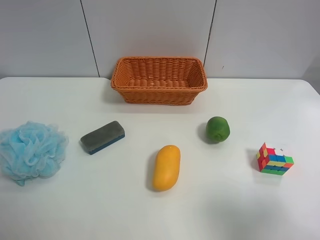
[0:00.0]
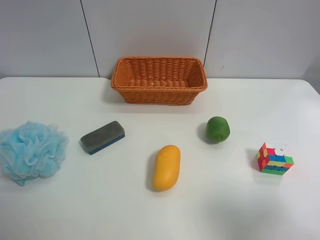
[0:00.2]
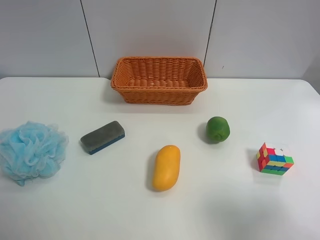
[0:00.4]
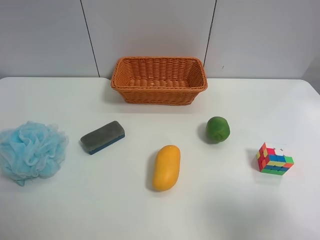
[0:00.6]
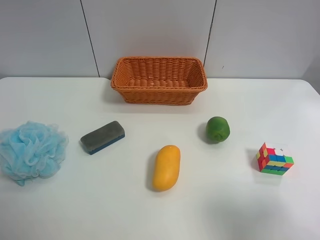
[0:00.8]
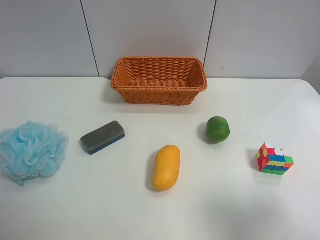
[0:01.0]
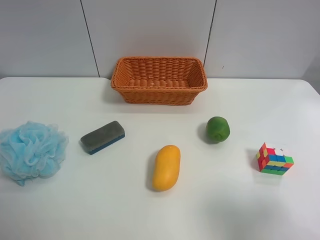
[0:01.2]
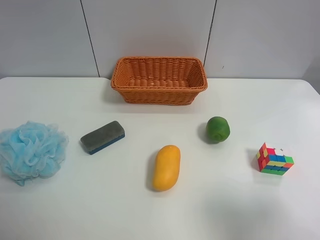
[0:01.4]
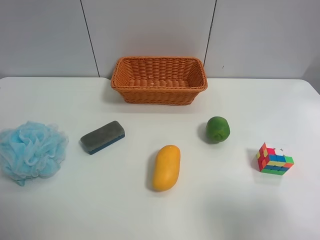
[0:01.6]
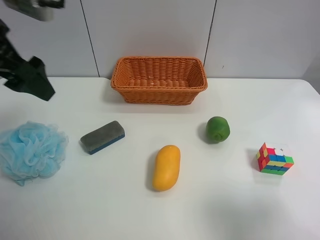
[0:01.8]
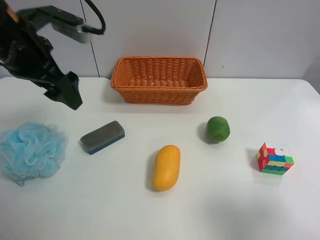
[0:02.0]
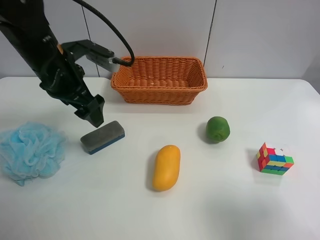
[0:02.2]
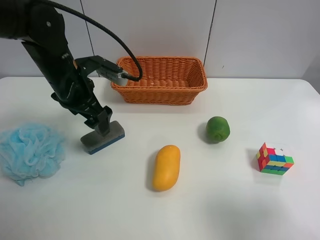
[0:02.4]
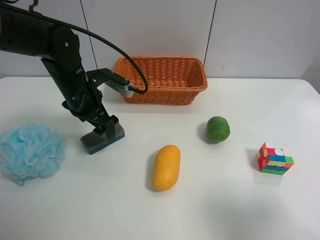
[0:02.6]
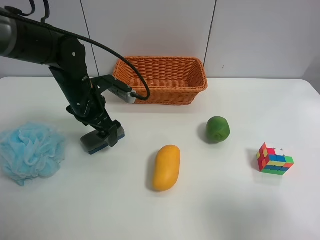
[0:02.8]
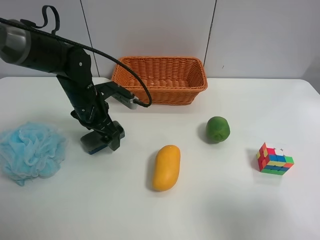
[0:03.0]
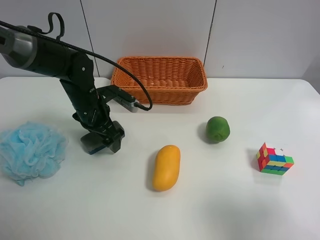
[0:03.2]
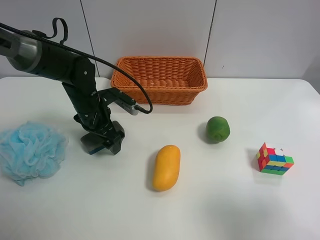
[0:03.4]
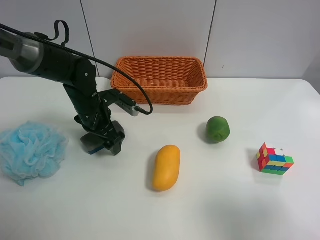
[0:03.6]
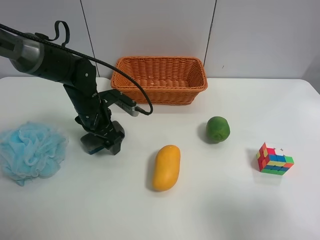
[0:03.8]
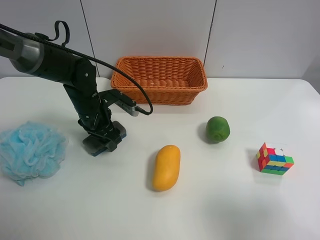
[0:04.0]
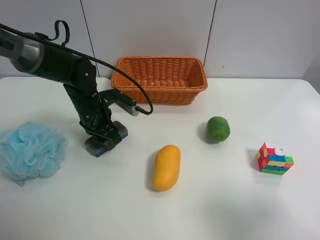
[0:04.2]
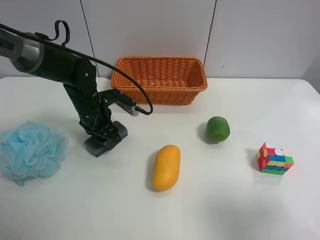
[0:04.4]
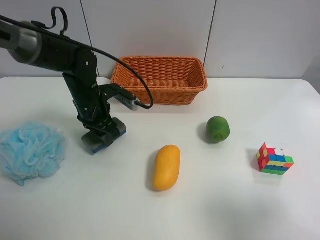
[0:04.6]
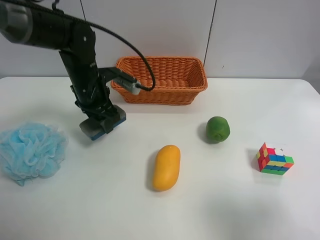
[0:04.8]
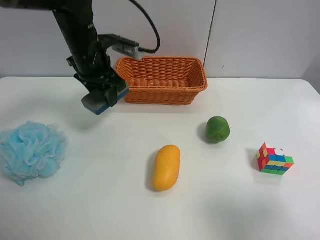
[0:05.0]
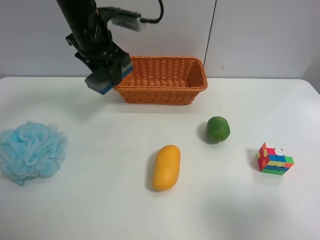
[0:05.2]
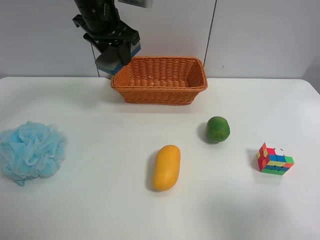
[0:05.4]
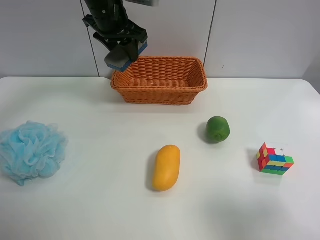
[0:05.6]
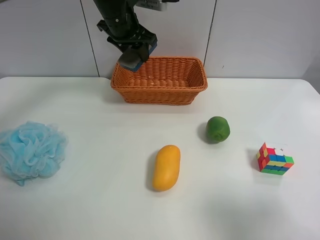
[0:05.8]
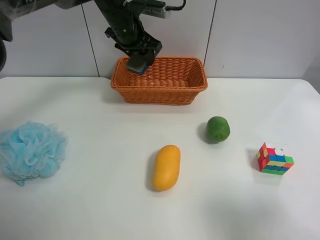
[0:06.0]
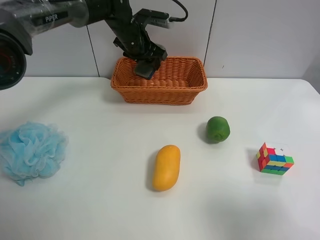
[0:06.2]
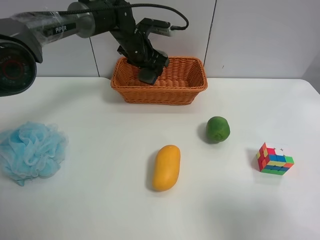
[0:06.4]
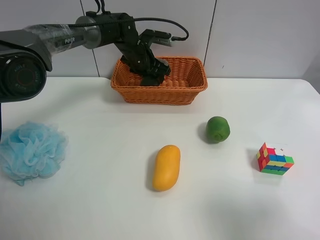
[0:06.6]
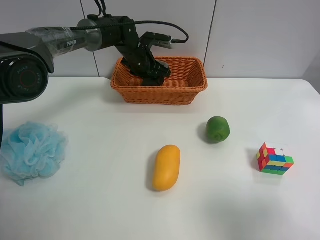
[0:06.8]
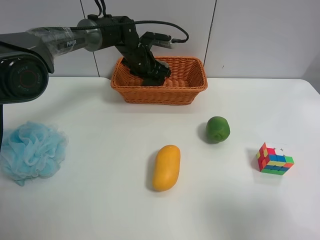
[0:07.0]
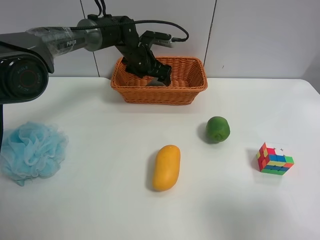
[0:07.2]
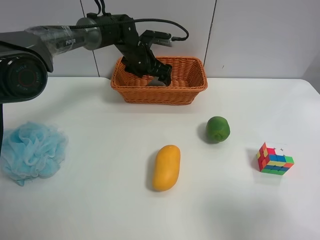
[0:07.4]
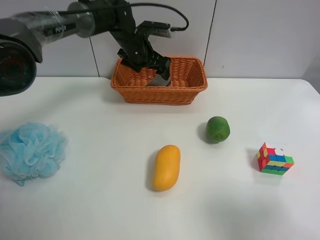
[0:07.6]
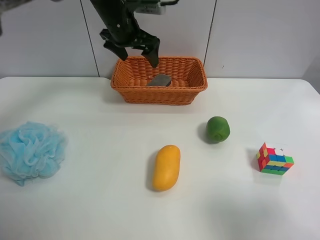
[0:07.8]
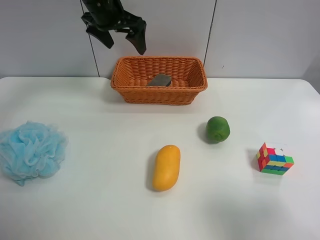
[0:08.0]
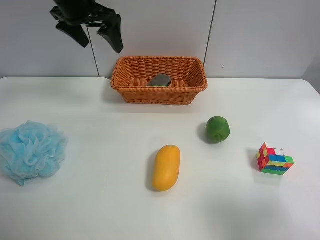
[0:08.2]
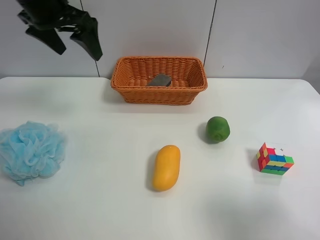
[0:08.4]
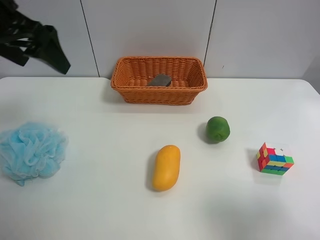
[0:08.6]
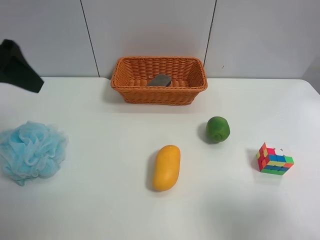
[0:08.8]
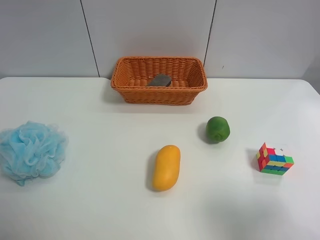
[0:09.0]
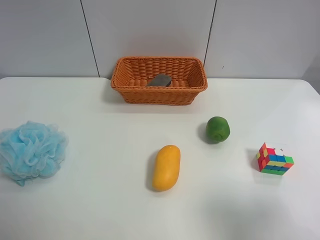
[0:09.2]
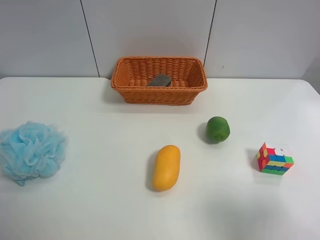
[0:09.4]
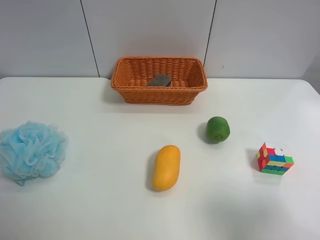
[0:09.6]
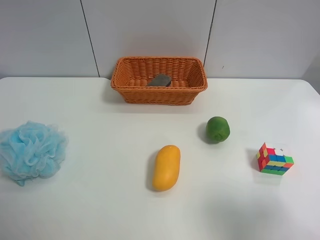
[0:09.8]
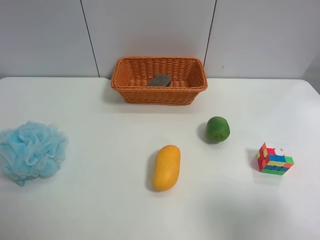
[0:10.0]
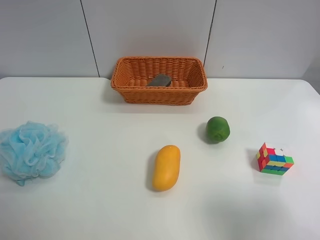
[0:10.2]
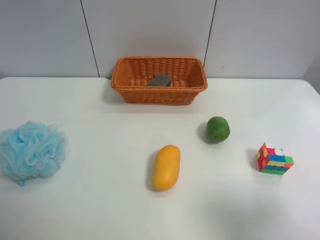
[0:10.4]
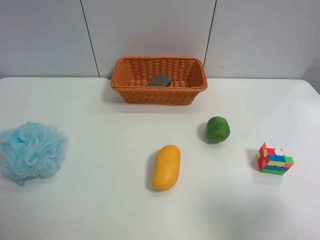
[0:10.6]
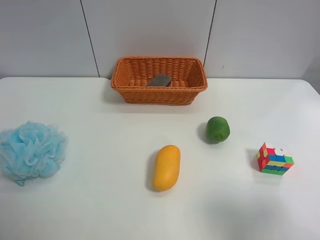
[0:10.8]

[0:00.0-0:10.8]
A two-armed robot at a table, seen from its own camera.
Task of the whole recording: use the left gripper to grab items from the table and place them in the basket.
Step, 0:00.0 to 0:04.2: Grasp the chalkboard eraser with the left gripper.
Step, 0:04.4 to 0:07.4: Place the chalkboard eraser into the basket with the left gripper.
0:01.6 to 0:03.0: The left gripper shifts about 30 cm downward, forward and to the right.
0:03.0 to 0:04.6: The left gripper closes.
0:04.6 to 0:06.2: The left gripper heads forward, to the right and upward, covering about 20 cm.
0:06.2 to 0:07.8: The left gripper moves upward, about 5 cm, and opens up.
0:07.8 to 0:09.2: The left gripper goes about 40 cm backward and to the left.

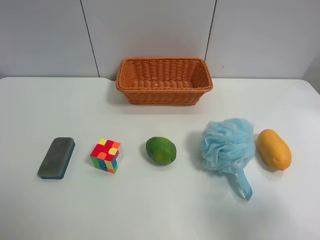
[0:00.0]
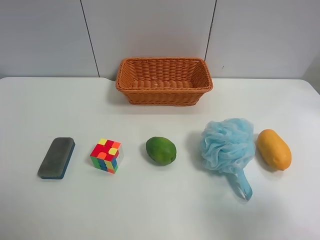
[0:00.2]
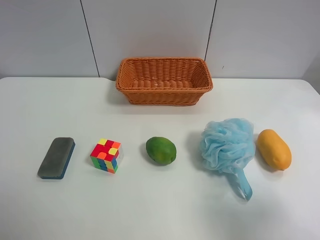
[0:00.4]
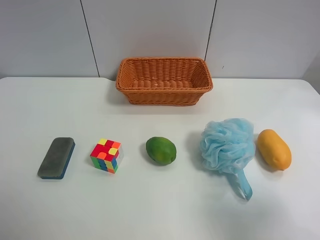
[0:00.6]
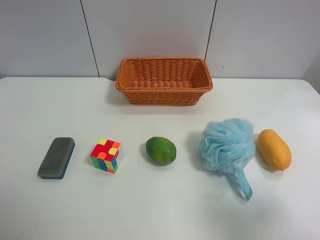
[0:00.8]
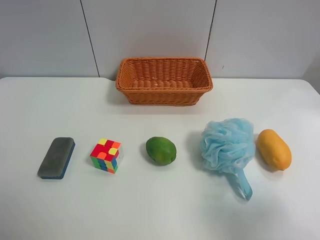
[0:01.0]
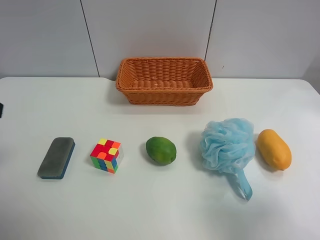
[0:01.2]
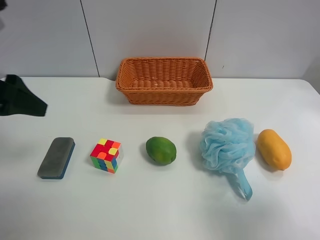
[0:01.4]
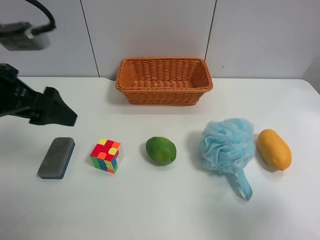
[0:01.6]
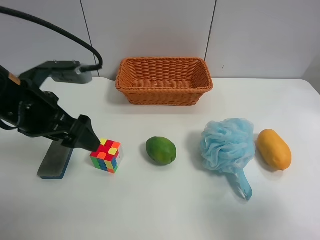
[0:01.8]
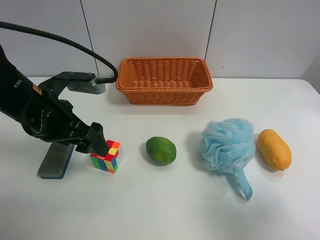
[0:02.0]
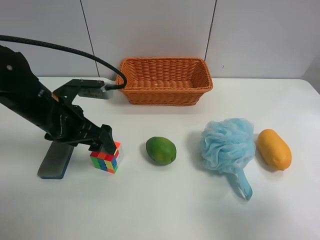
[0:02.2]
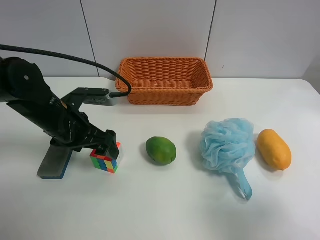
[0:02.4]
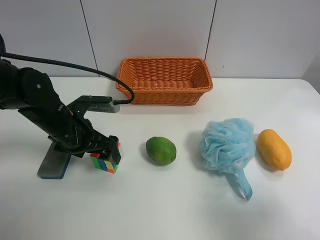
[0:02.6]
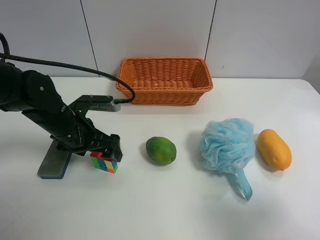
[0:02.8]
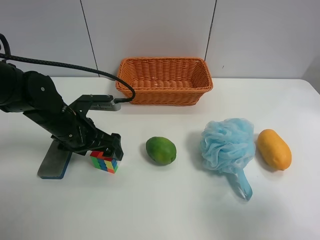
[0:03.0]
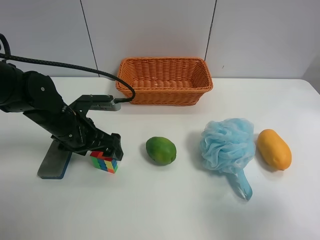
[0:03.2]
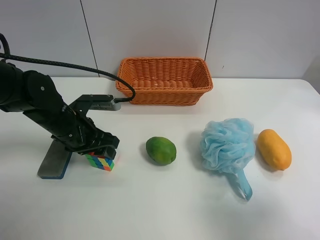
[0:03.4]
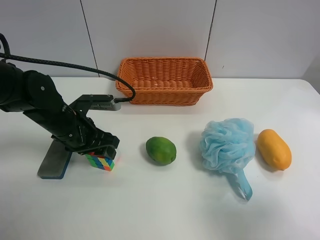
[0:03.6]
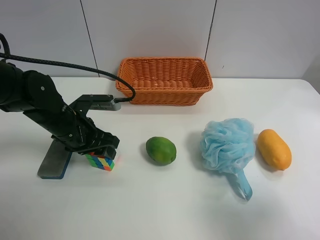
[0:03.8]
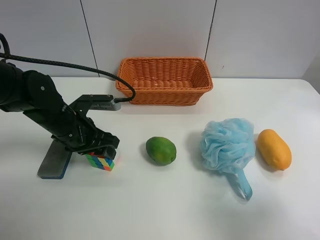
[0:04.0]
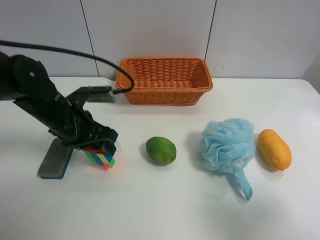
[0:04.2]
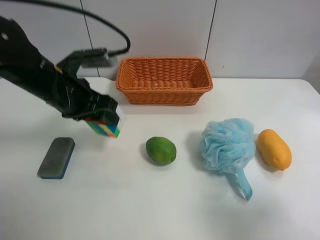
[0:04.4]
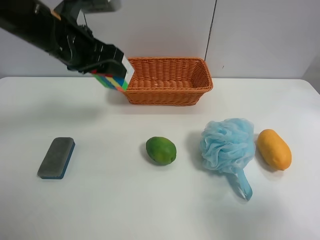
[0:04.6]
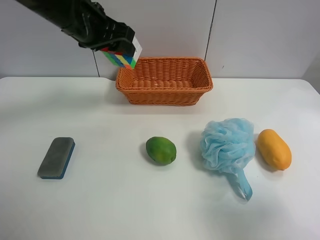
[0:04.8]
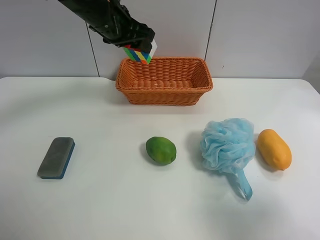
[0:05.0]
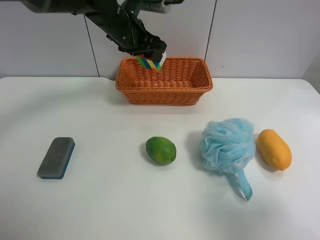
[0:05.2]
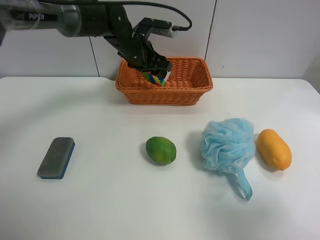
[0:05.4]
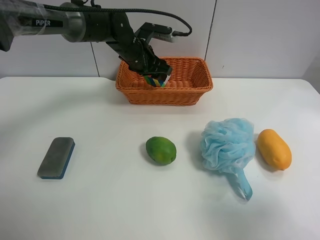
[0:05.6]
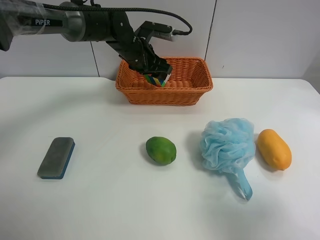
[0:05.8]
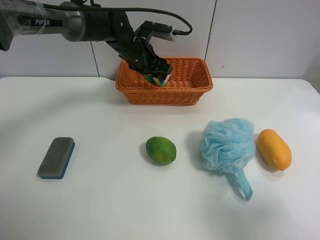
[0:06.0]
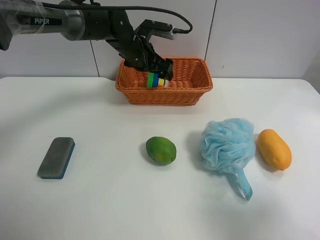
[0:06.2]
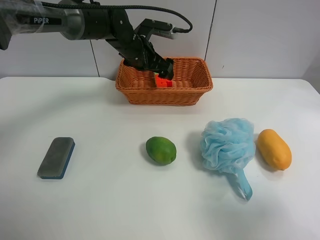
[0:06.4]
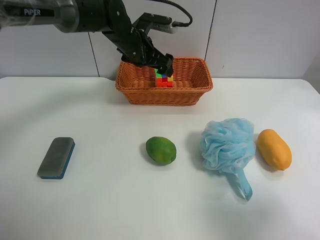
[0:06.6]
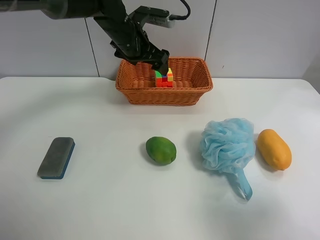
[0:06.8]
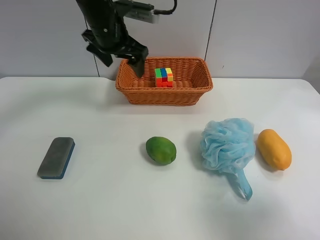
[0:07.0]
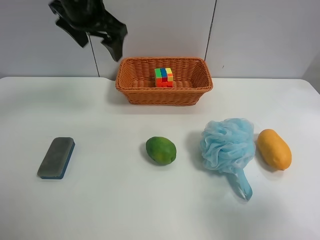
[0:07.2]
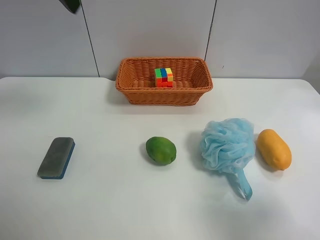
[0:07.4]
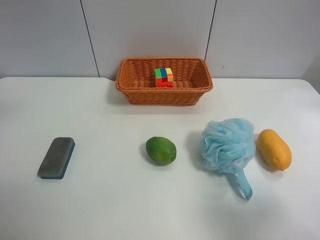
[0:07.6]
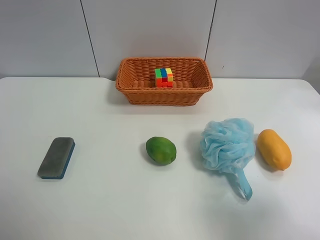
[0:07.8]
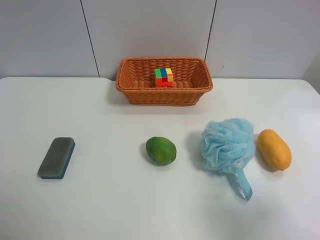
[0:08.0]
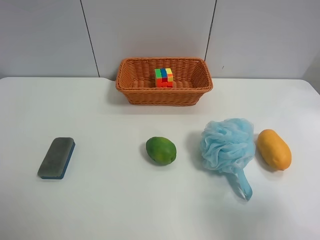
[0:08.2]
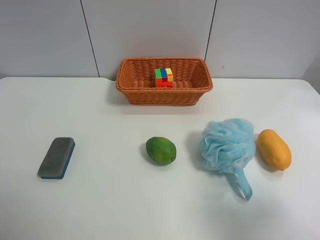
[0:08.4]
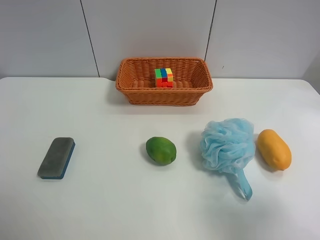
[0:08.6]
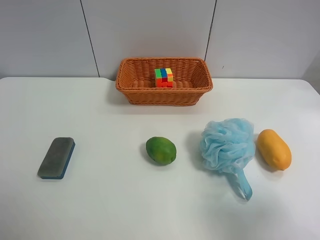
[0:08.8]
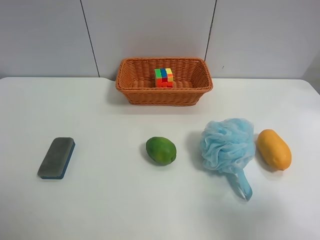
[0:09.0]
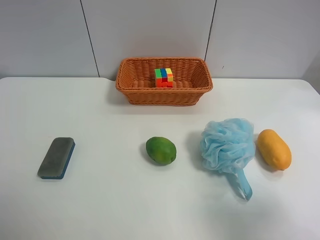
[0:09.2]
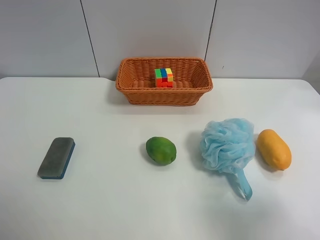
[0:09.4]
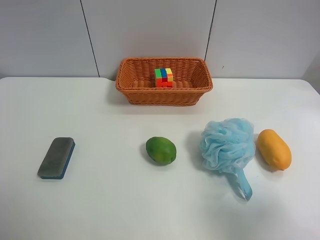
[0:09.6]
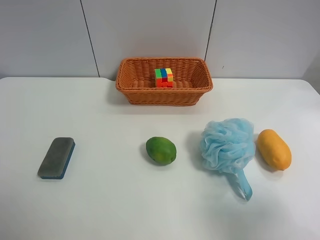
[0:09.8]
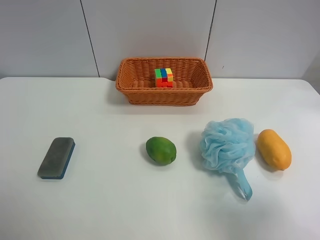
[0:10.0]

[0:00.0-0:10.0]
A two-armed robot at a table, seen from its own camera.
Task of the whole recording: use the left gripper to grab items from the table and place them in the basket.
Step, 0:00.0 to 0:03.4: Grasp the Rubik's Cube with the left gripper.
Step, 0:03.6 to 0:06.2: Place the Rubik's Cube into the basket with the left gripper.
0:00.0 to 0:01.4: The left gripper travels forward by some 20 cm.
0:01.4 to 0:02.8: The left gripper is displaced downward, to the right and forward by roughly 20 cm.
0:02.8 to 0:04.2: The left gripper closes its fingers.
0:04.2 to 0:05.8: The left gripper heads forward and to the right, covering roughly 20 cm.
0:05.8 to 0:07.2: The left gripper travels upward, backward and to the left by approximately 20 cm, and opens up.
0:07.2 to 0:08.6: The left gripper is displaced backward and to the left by approximately 40 cm.
